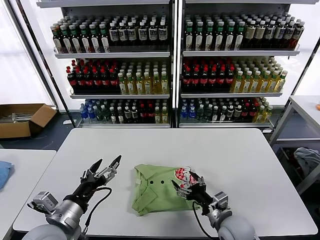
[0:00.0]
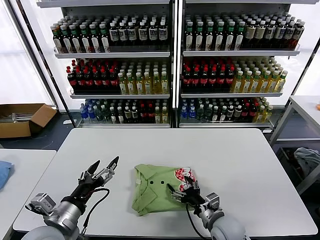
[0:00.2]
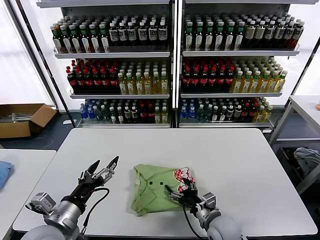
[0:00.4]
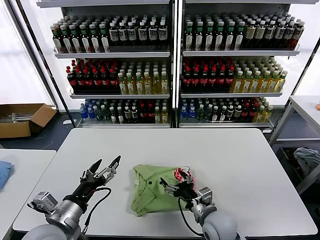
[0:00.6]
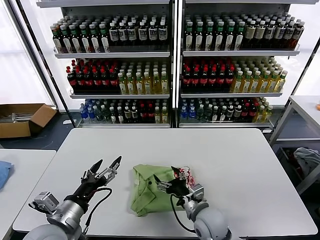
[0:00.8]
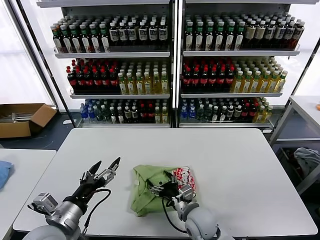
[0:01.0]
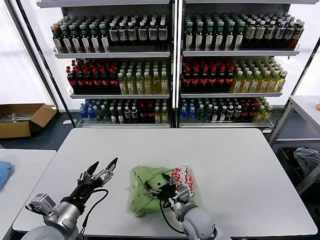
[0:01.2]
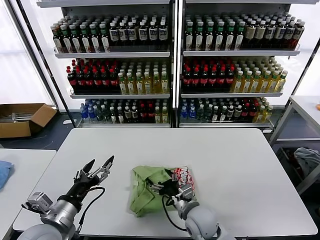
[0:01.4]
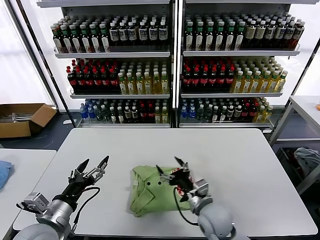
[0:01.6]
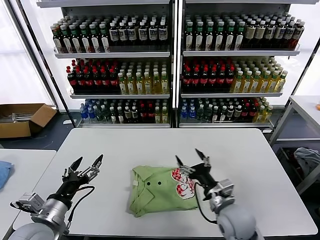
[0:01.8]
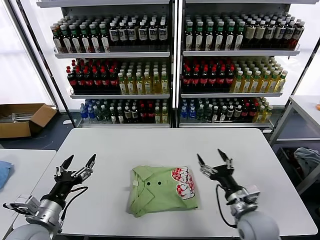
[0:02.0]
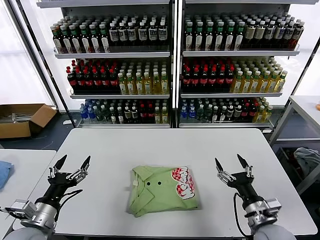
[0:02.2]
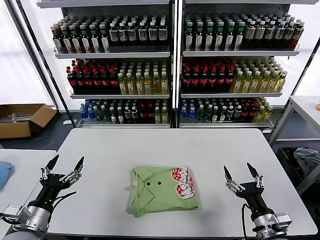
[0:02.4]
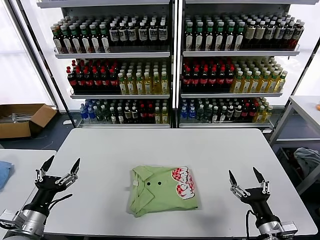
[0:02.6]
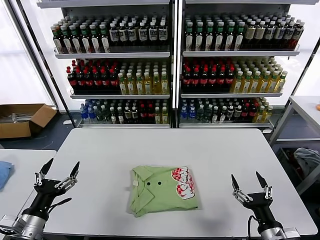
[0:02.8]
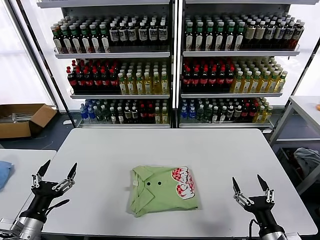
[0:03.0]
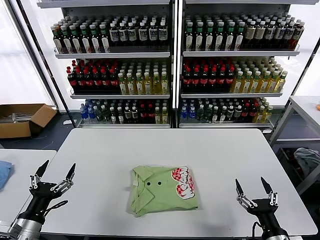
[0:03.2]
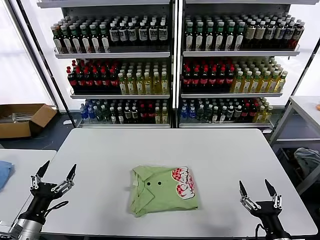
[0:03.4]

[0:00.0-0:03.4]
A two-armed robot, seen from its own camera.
Task of the whole recording: fold and organize the clothes.
0:00.0 to 0:01.6: The right gripper moves to the left, roughly 10 cm.
0:01.6 to 0:03.4: The right gripper goes roughly 25 cm to the right and backward. Meanwhile the left gripper is displaced to the left by approximately 10 cm.
